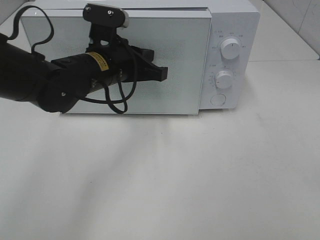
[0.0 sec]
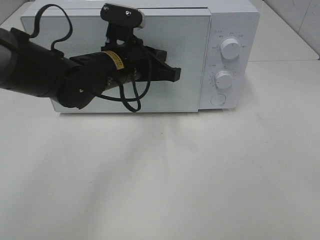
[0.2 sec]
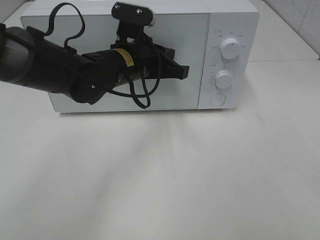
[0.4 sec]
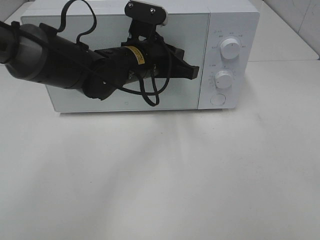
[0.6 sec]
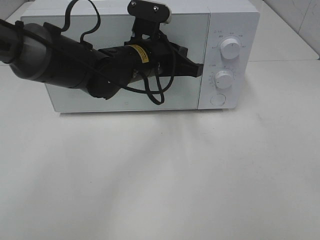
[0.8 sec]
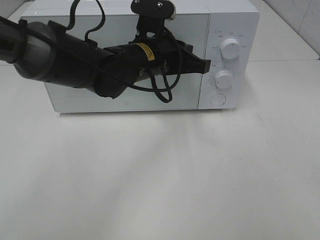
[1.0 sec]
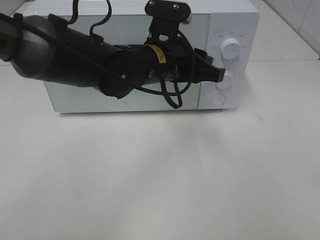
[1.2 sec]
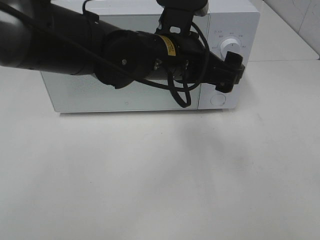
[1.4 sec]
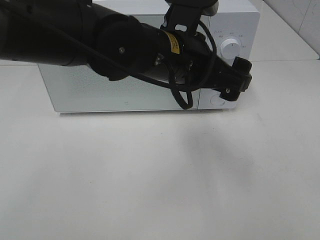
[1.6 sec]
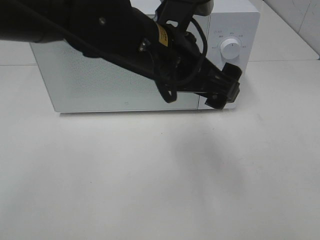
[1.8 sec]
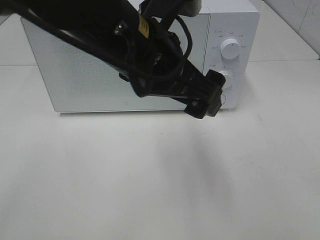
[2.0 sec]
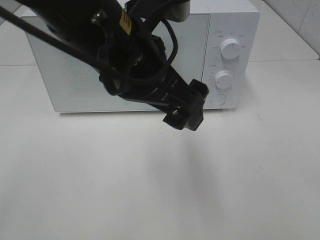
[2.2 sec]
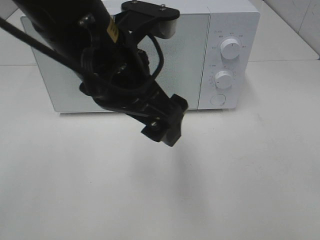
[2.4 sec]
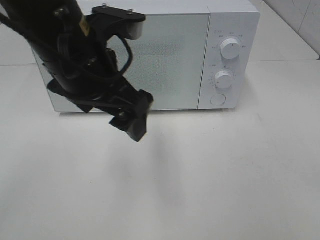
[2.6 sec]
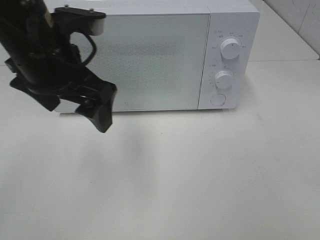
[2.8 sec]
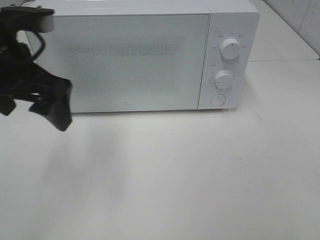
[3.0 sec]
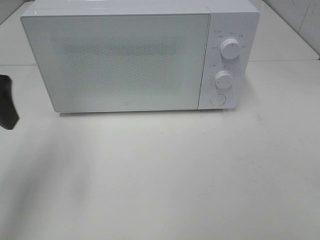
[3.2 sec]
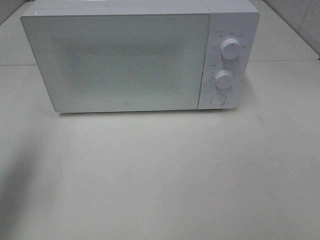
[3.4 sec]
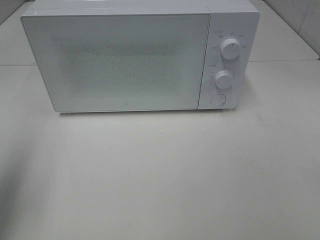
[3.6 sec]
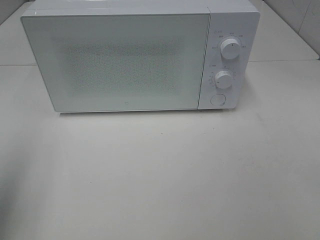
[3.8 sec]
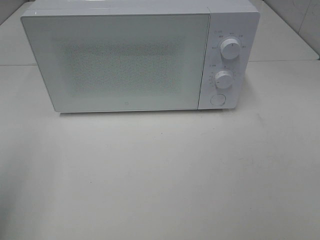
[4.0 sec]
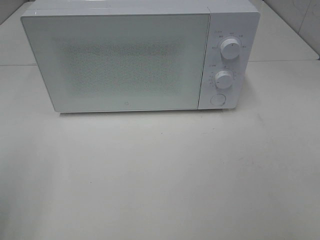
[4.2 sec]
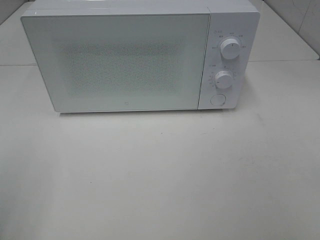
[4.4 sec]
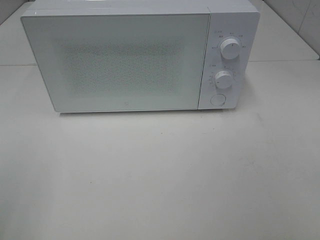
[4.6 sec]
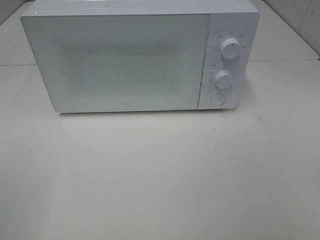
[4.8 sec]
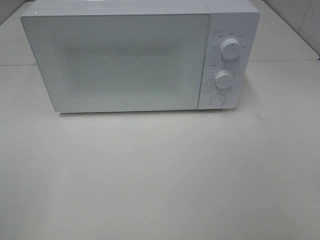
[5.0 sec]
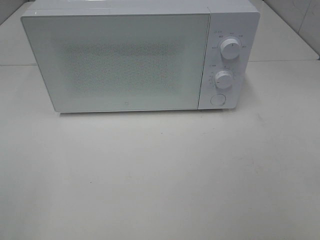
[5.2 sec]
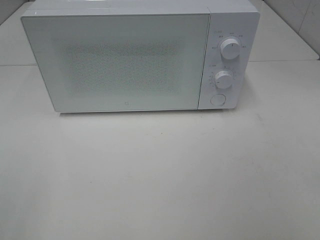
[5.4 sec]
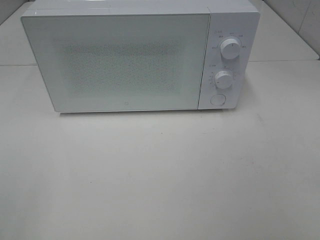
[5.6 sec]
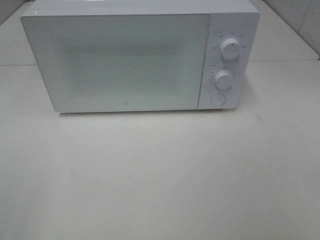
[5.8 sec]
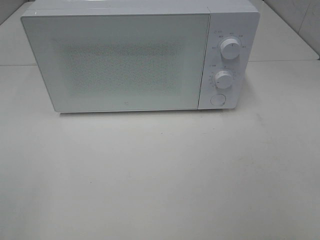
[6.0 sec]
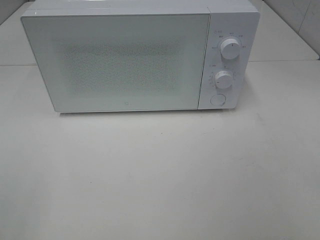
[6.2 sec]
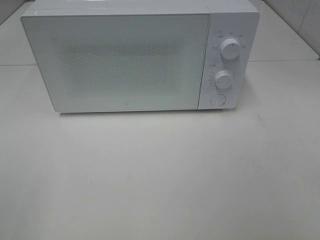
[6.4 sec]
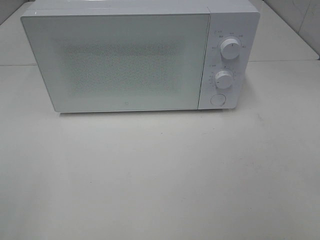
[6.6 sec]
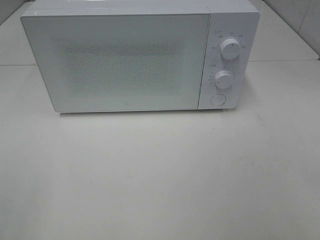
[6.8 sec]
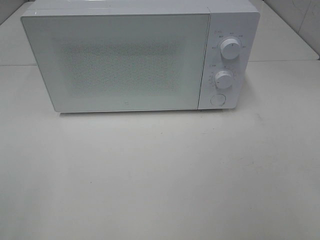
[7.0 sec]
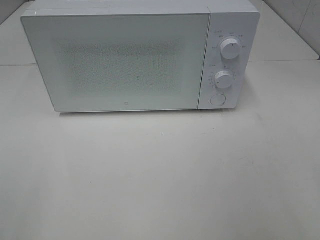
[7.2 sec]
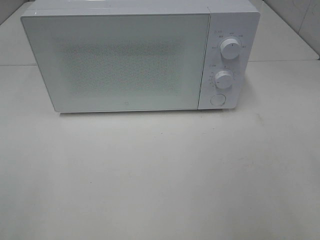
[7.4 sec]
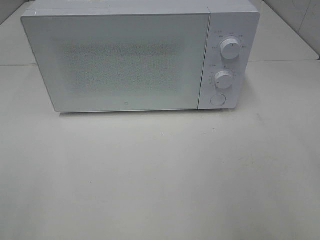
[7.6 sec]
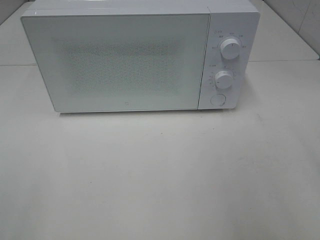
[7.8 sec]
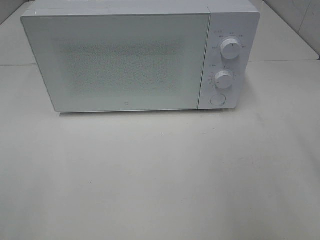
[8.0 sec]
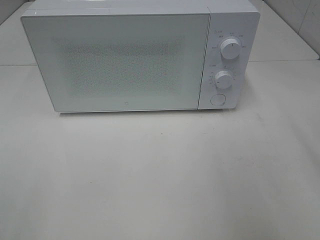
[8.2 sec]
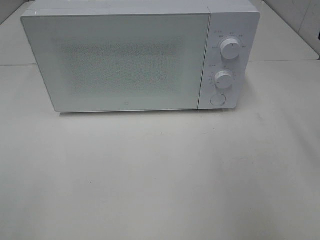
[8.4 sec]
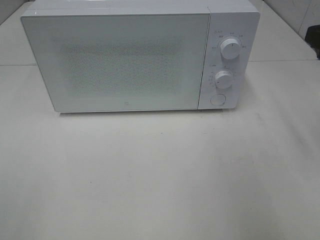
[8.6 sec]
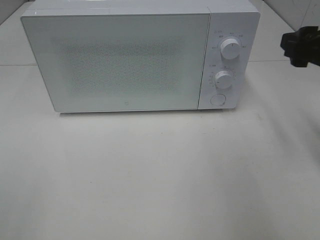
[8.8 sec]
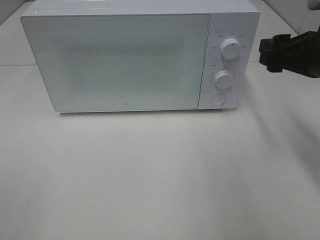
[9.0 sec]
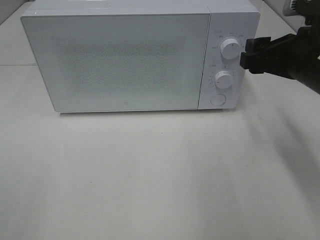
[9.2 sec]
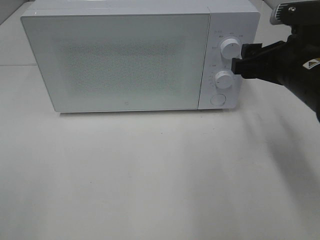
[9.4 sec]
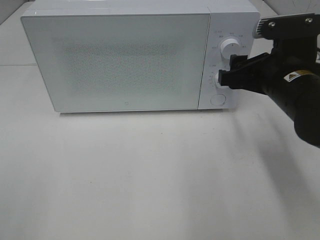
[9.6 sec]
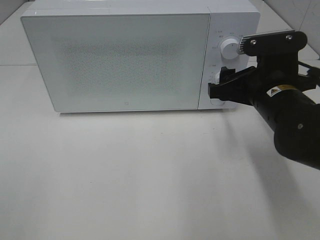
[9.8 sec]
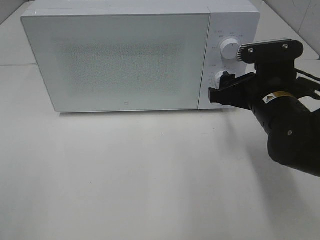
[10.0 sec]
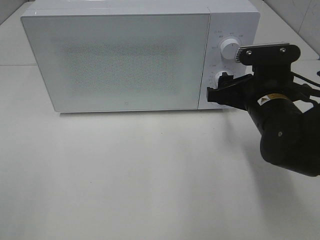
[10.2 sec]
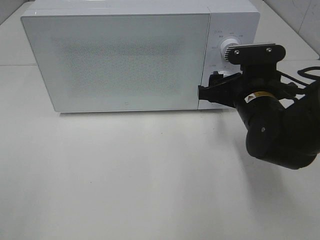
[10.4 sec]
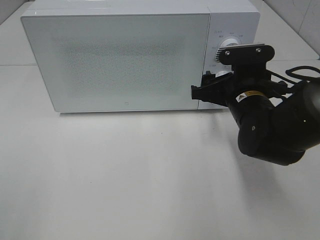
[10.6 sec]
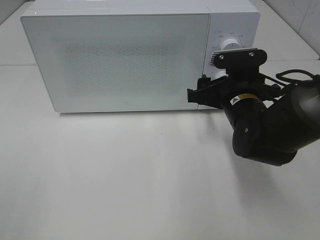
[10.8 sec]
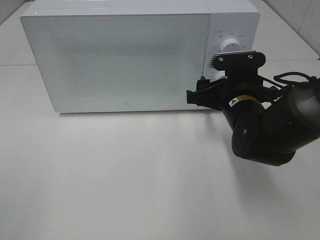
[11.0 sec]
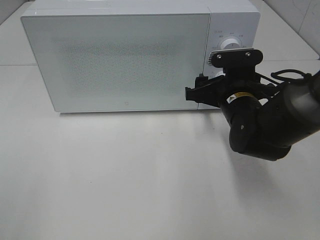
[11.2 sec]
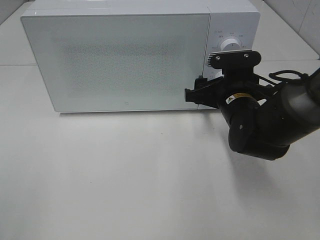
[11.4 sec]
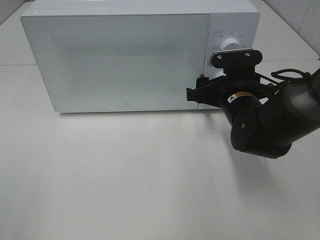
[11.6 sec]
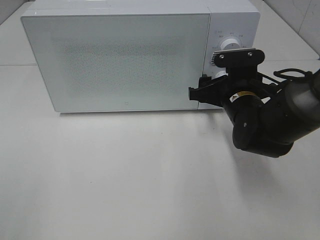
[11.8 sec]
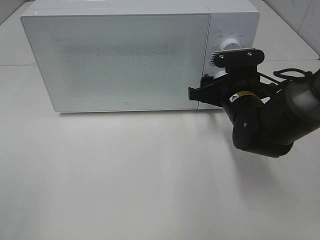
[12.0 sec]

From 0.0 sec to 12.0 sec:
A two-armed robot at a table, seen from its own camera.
Task of the whole recording: Heat the burger.
From 0.0 sec to 1.6 sec: The left gripper shifts roughly 15 cm to the right, backward and upward, and opens up.
From 1.6 sec to 3.0 sec: The left gripper travels to the left by approximately 20 cm.
From 3.0 sec to 4.4 sec: The left gripper goes approximately 25 cm backward and to the left.
From 7.6 sec to 9.0 sec: The right gripper goes about 20 cm forward and downward.
From 9.0 sec to 10.4 sec: The right gripper goes about 10 cm downward and to the left.
From 10.4 sec to 12.0 sec: The grippers move only a little.

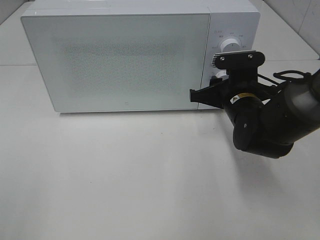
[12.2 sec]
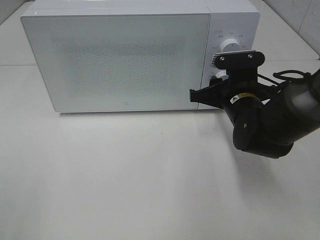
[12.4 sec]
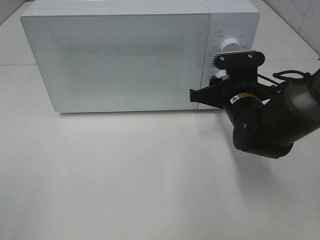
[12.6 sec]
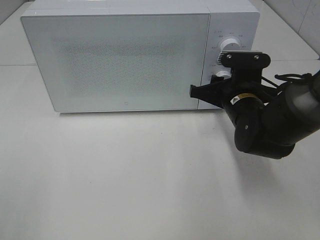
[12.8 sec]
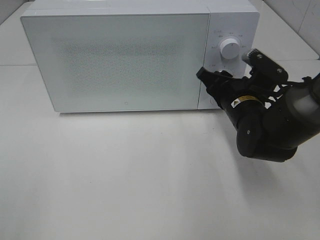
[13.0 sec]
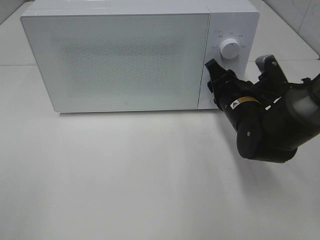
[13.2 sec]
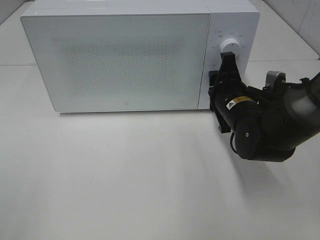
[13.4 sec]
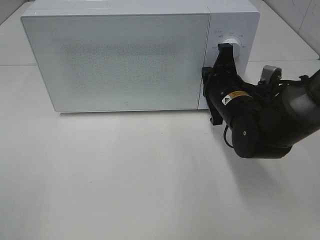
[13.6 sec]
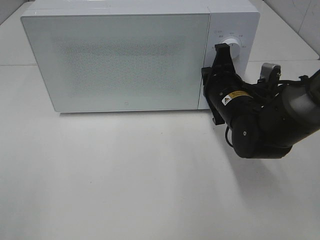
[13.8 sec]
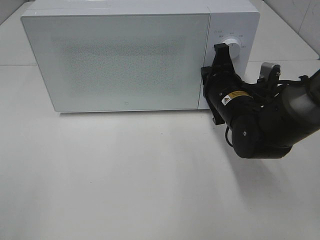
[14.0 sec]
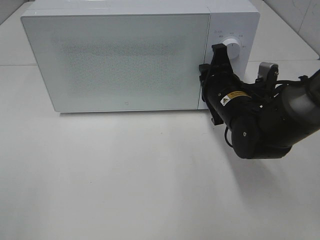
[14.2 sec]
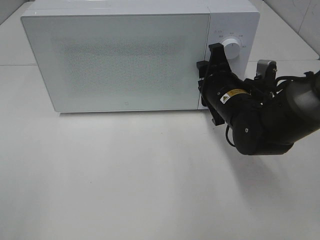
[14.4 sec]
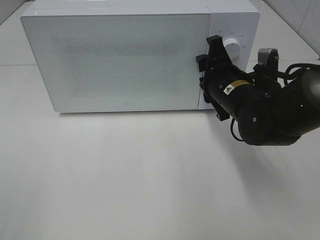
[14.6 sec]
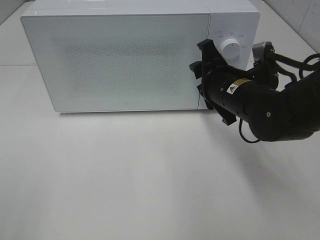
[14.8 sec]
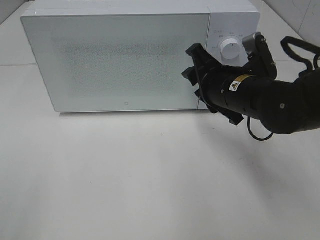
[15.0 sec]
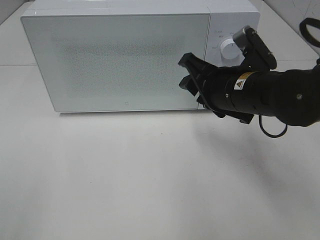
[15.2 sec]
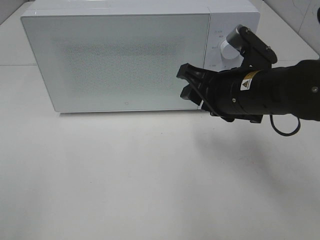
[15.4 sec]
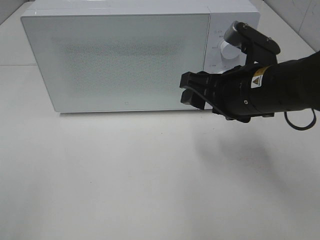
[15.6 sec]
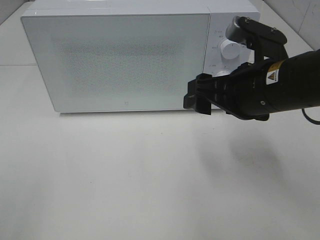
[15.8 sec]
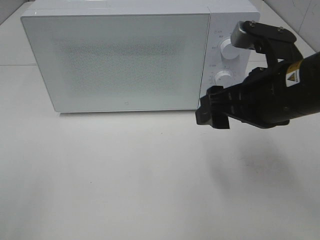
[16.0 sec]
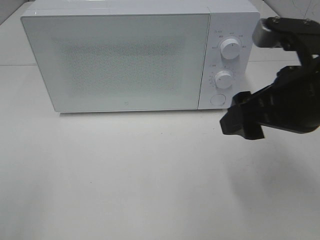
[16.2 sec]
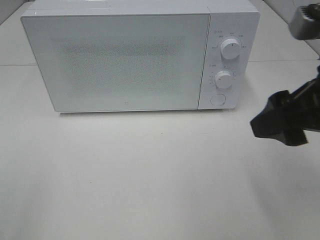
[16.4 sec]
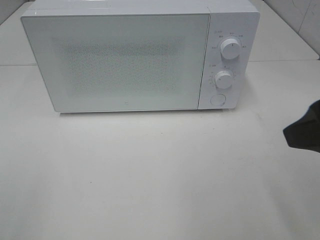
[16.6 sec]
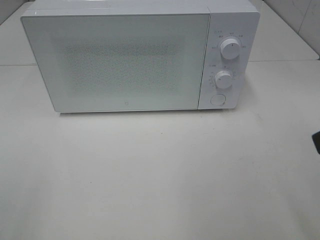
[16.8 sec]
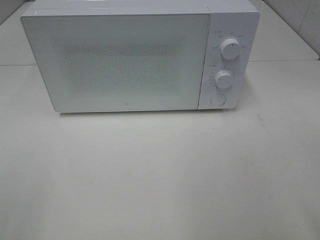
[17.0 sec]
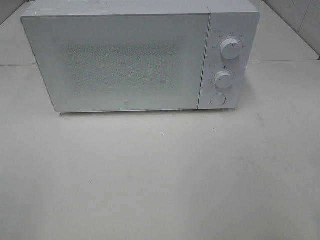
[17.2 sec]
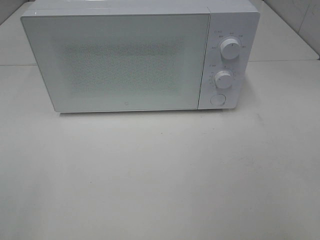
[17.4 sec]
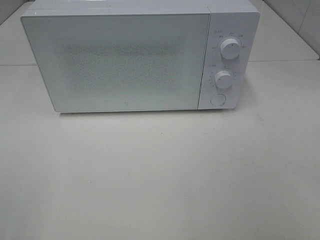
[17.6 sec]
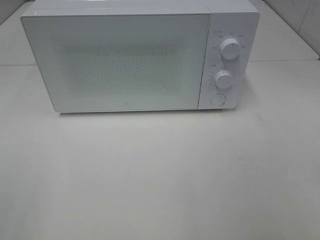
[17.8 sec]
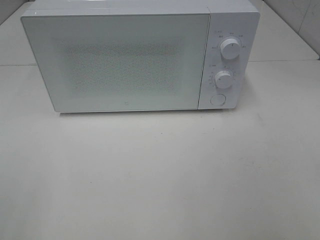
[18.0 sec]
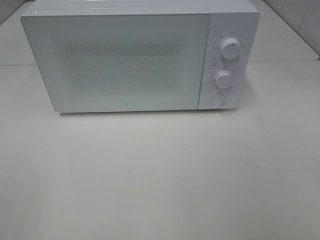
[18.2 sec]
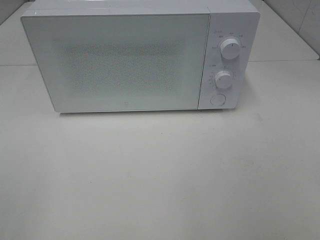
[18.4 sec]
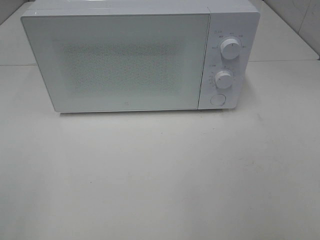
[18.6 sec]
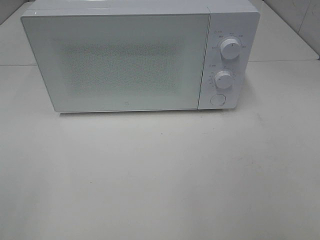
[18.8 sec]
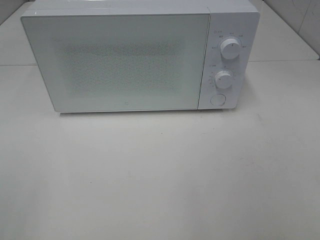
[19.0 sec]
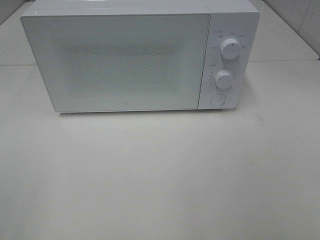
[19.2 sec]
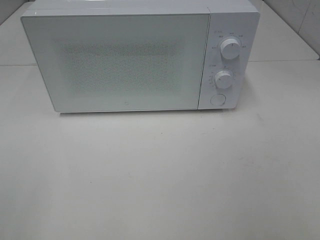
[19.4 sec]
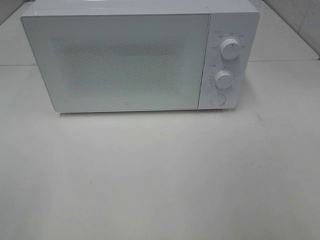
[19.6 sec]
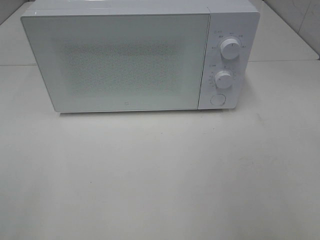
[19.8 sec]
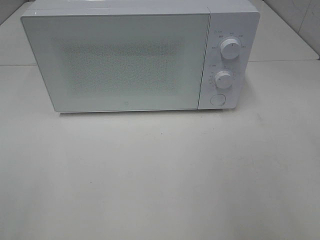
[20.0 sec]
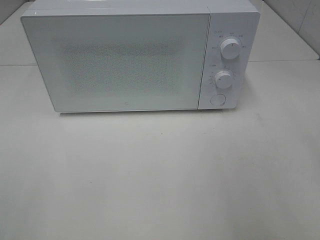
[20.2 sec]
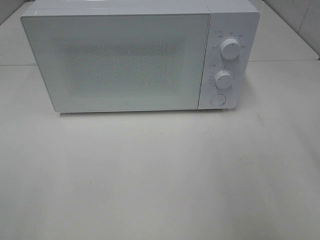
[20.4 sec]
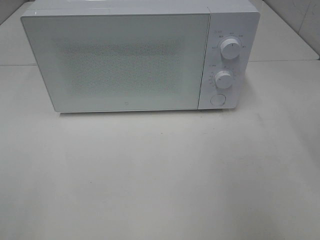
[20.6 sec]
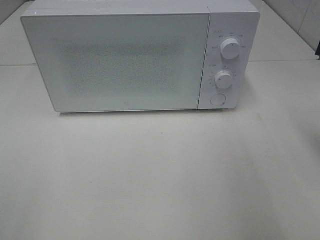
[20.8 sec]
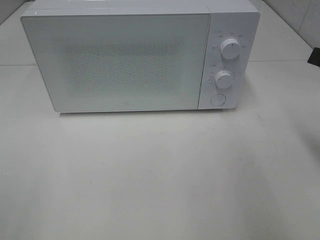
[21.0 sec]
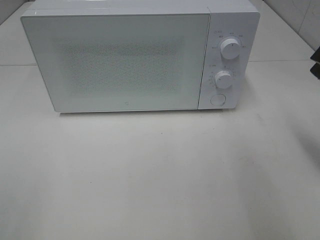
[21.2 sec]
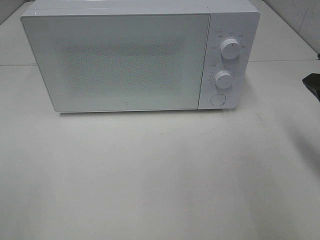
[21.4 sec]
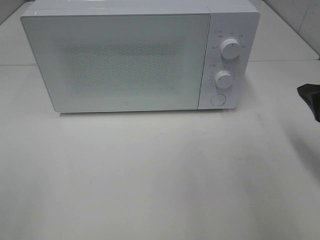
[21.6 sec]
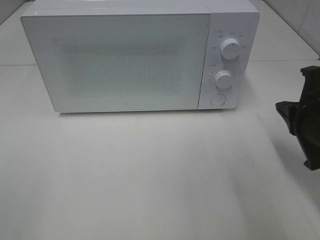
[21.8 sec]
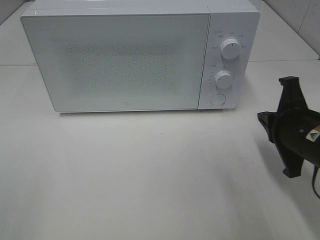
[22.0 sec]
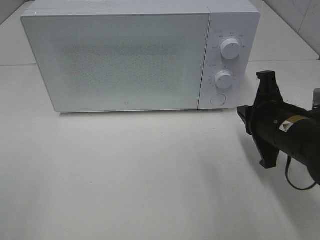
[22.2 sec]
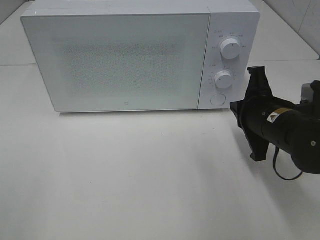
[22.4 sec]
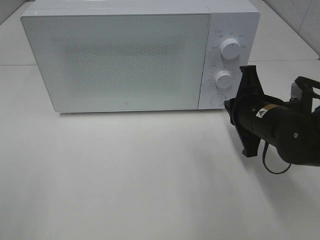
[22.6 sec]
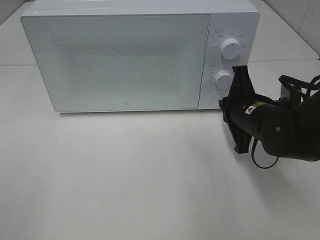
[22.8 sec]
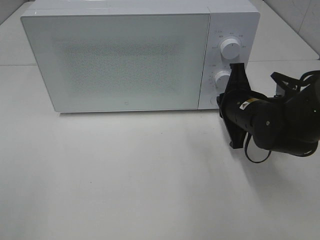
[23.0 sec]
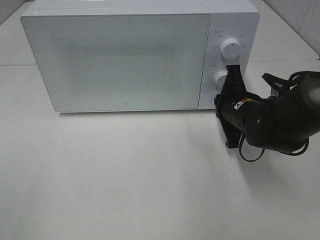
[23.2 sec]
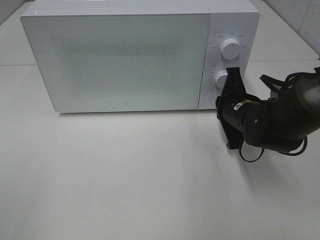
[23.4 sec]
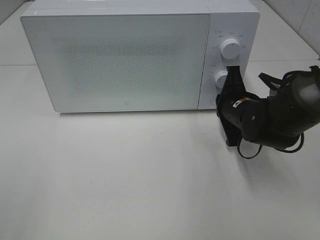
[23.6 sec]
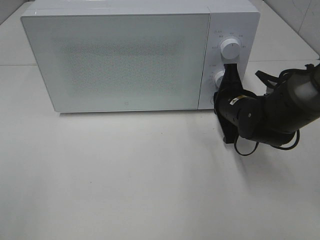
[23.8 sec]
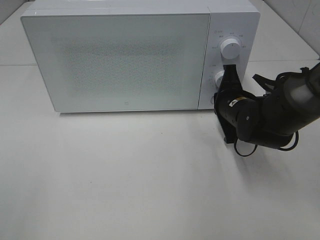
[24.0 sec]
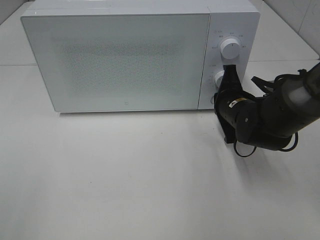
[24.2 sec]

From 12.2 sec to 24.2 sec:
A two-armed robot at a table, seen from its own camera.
Task of the whole recording: Heat the burger.
From 12.2 sec to 13.8 sec: The right gripper closes.
From 13.8 sec to 15.2 sec: The right gripper moves upward, about 5 cm, and opens its fingers.
From 15.2 sec to 16.6 sec: The right gripper moves backward, upward and to the right, about 20 cm.
From 16.6 sec to 18.2 sec: The right gripper heads backward and to the right, covering roughly 15 cm.
From 19.8 sec to 21.2 sec: The right gripper goes approximately 15 cm forward and downward, and closes.
From 21.2 sec to 22.6 sec: The right gripper moves to the left, downward and forward, approximately 15 cm.
From 22.6 sec to 24.2 sec: The right gripper heads forward, covering some 5 cm.
